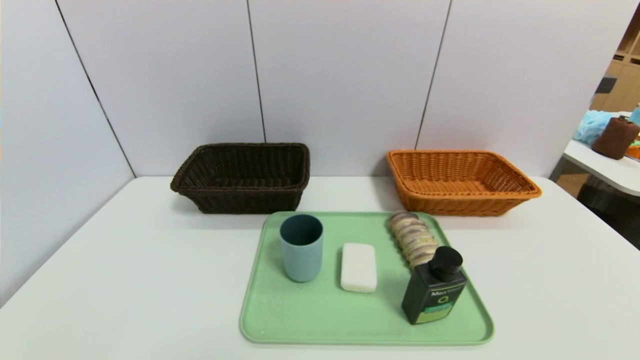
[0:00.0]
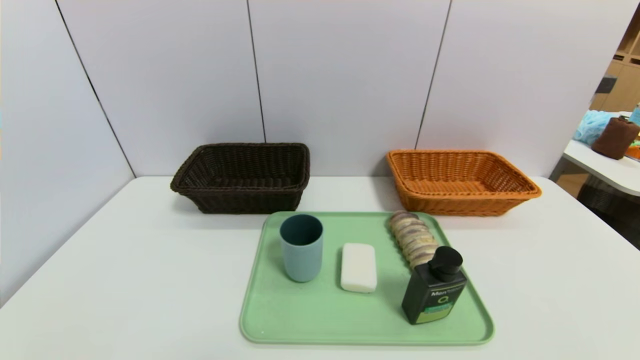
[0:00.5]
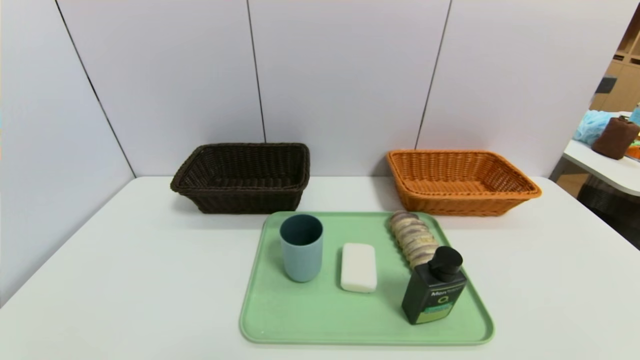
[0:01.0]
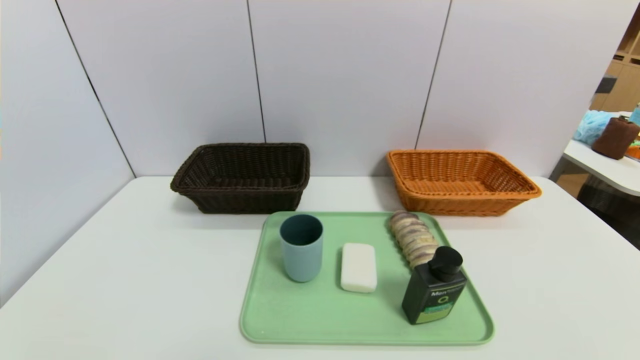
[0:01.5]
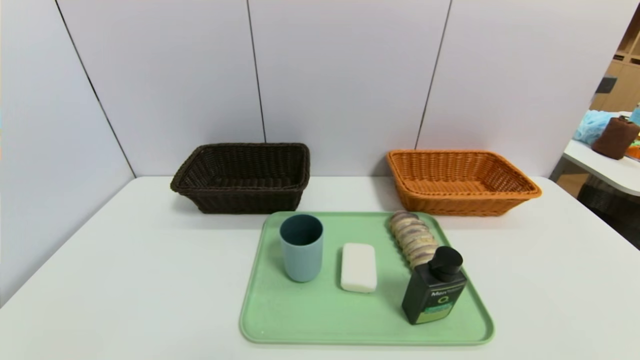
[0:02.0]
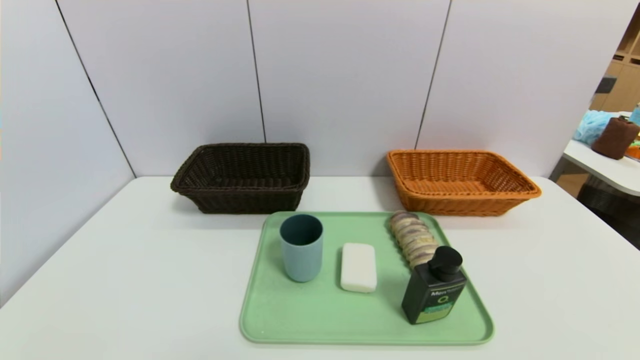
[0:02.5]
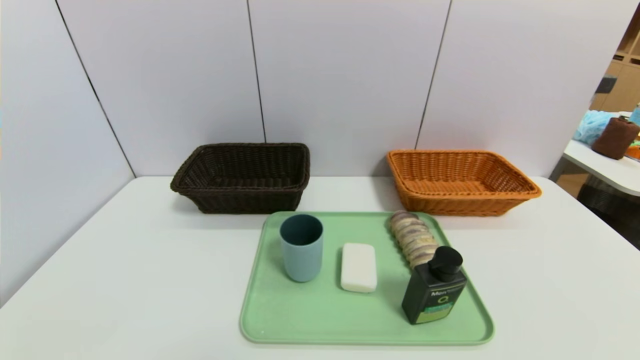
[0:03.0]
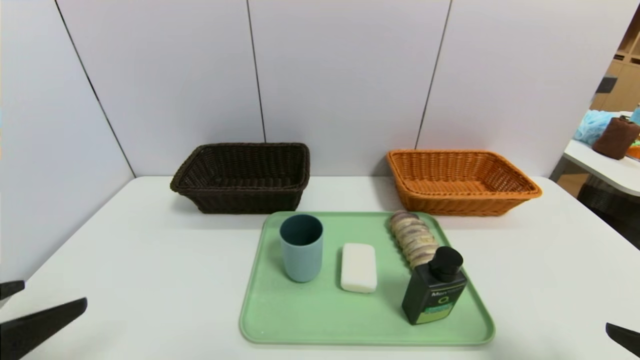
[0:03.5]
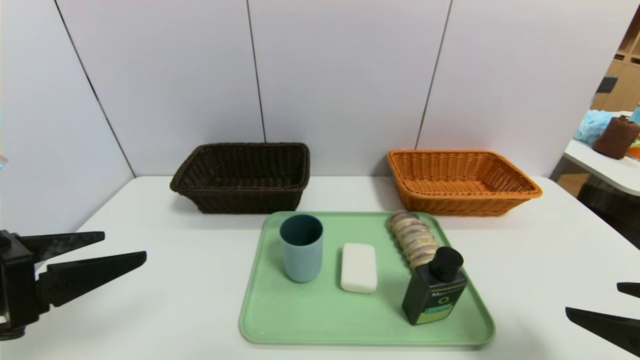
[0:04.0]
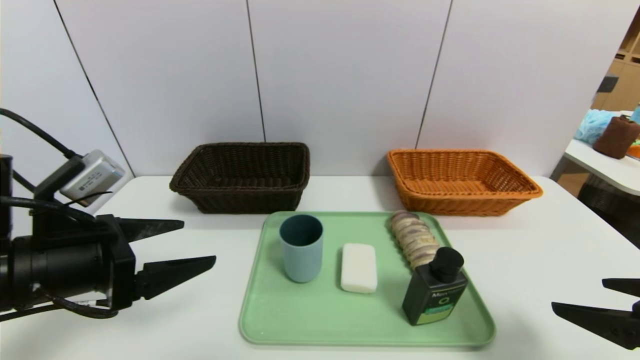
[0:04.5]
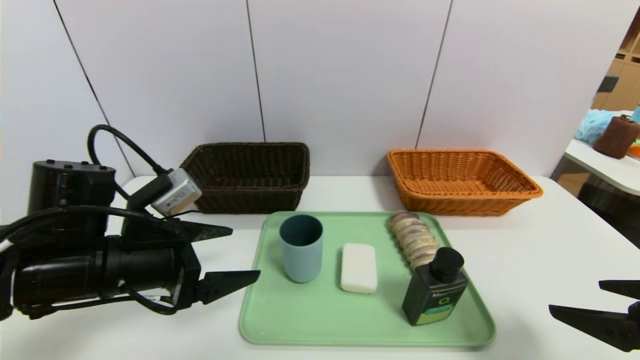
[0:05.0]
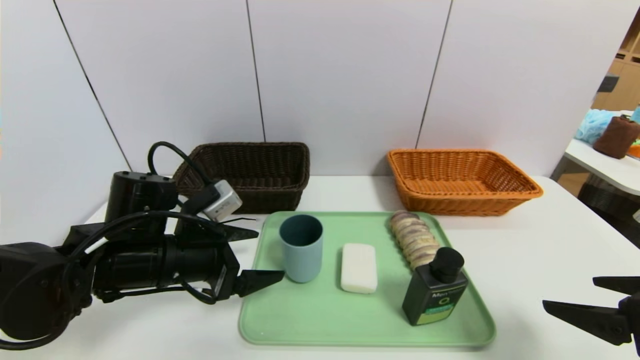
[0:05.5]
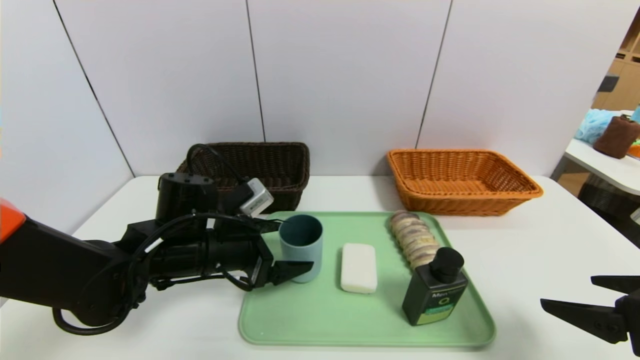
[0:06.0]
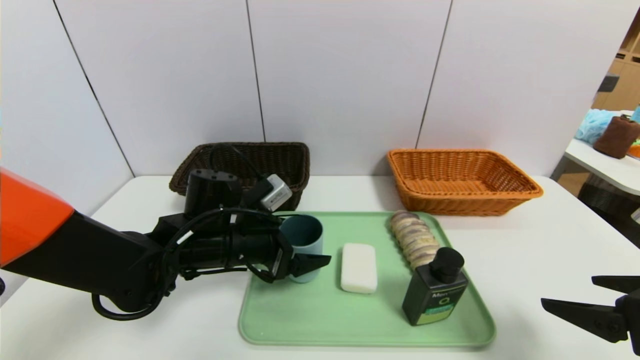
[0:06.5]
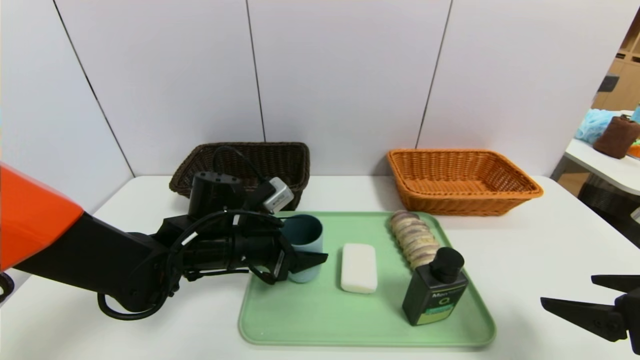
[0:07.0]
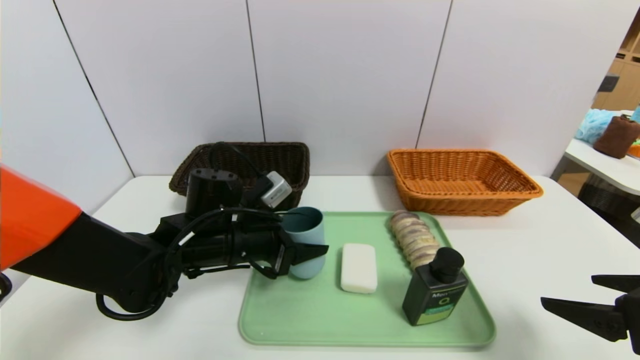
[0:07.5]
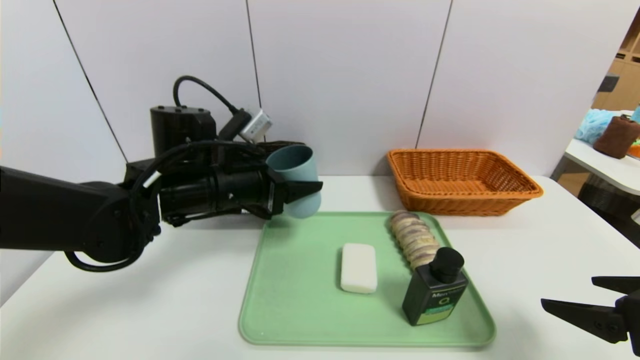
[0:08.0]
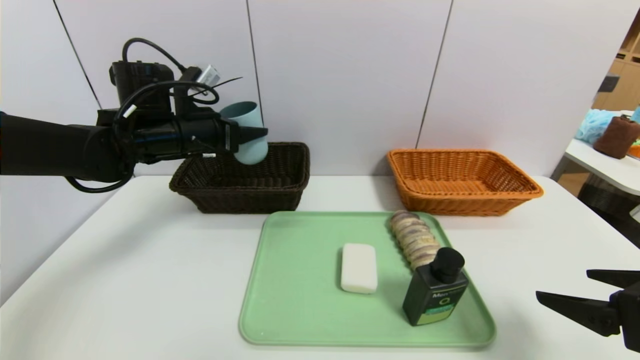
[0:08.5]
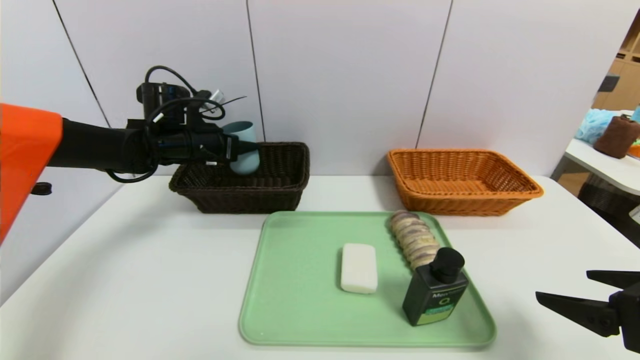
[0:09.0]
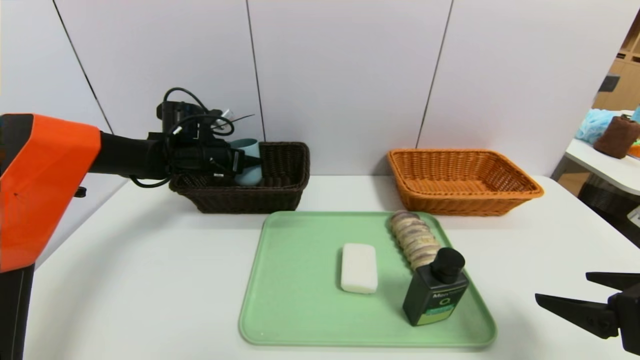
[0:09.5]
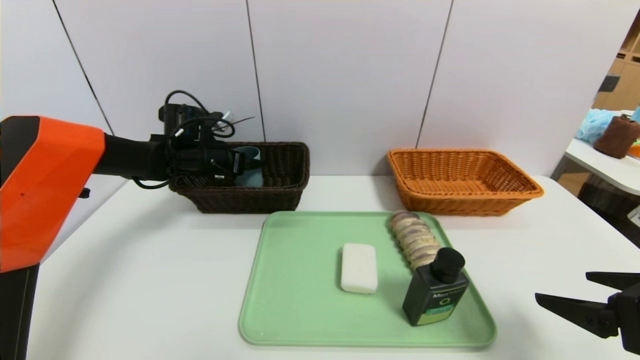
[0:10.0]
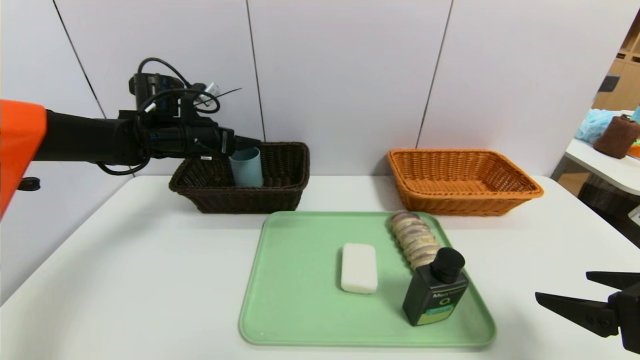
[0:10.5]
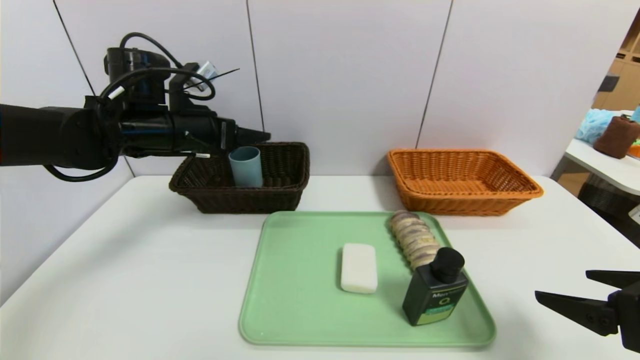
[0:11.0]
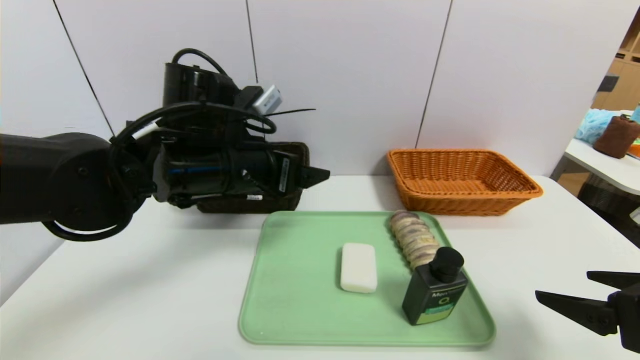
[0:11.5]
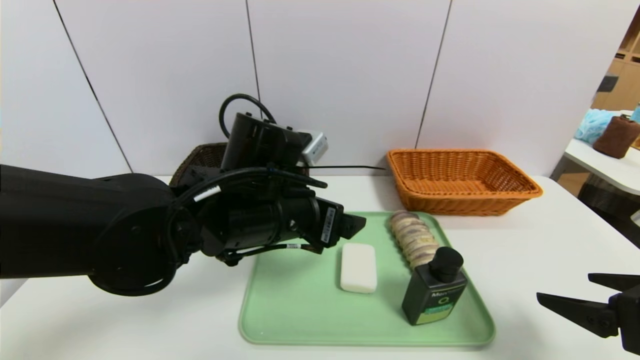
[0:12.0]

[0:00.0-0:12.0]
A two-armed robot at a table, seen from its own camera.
Task of the whole recording: place the food in the right basket with the right gripper, and place the non food items in the left basket with the left gripper.
Step, 0:00.0 to 0:10.0: Grasp the blue cup and put it in the left basket.
0:00.0 to 0:02.0: Both grippers stay put.
0:02.0 to 0:04.0: Both grippers travel together upward and forward, some 20 cm.
0:04.0 to 0:06.0: The left gripper travels forward, to the right and downward by some 25 cm.
0:06.0 to 0:08.0: The left gripper moves upward, some 10 cm, and closes up.
0:08.0 to 0:10.0: The left gripper moves forward and to the left, approximately 20 cm.
0:10.0 to 0:12.0: The left gripper shifts roughly 30 cm backward and to the right.

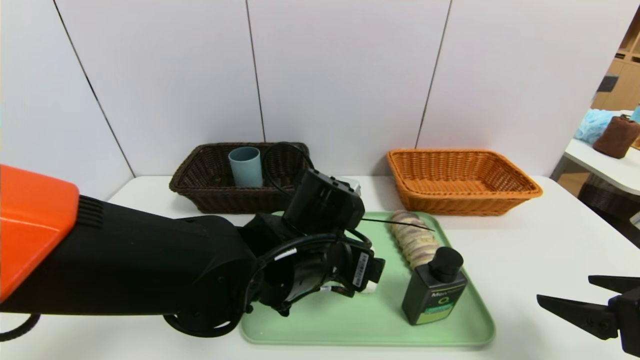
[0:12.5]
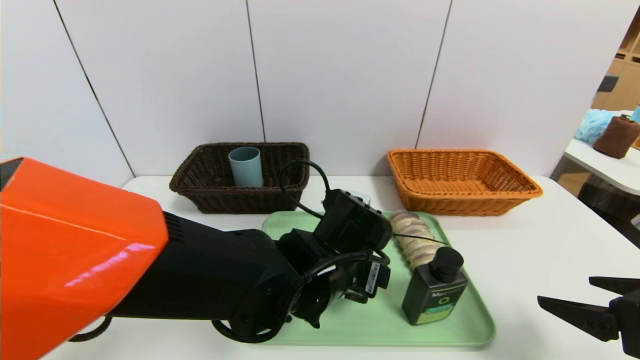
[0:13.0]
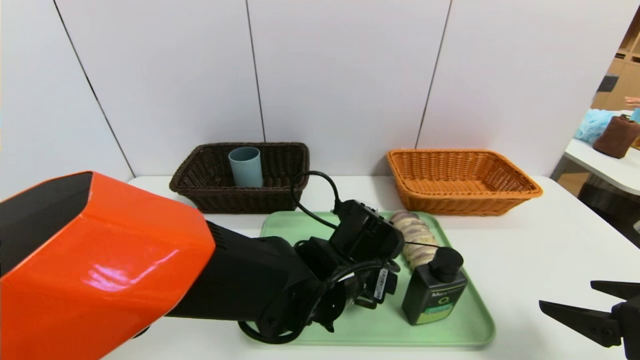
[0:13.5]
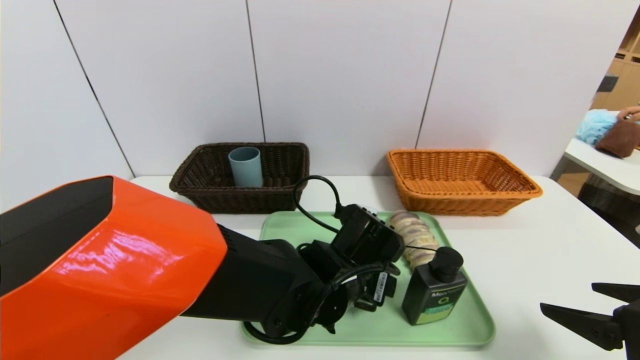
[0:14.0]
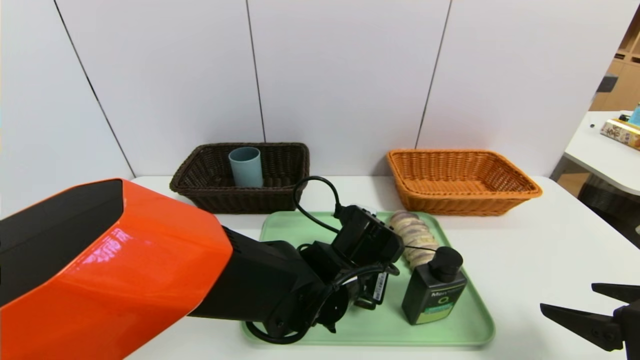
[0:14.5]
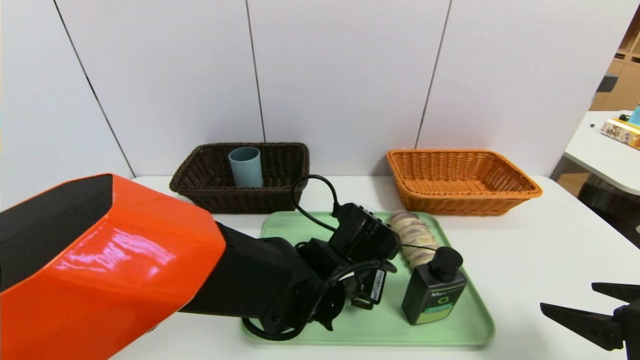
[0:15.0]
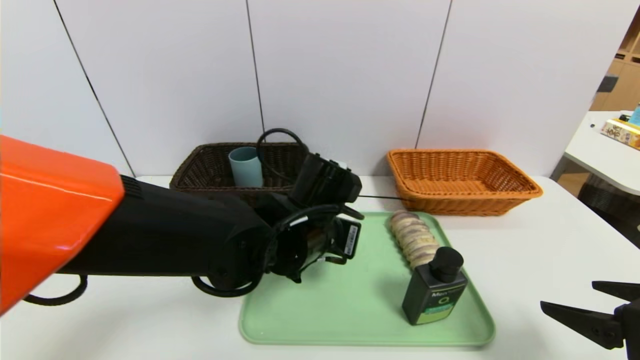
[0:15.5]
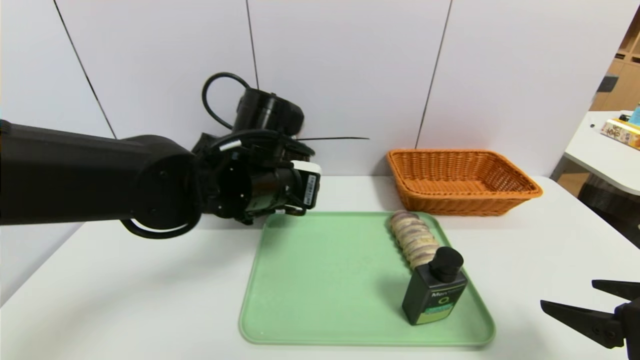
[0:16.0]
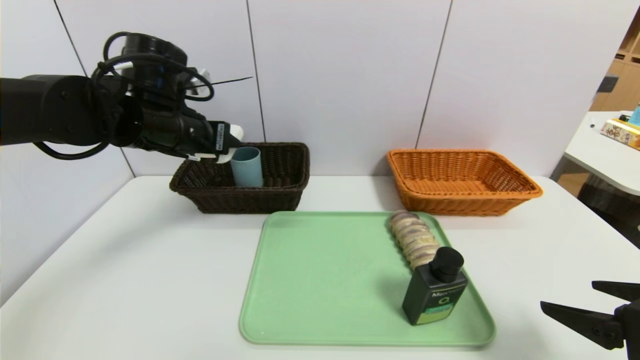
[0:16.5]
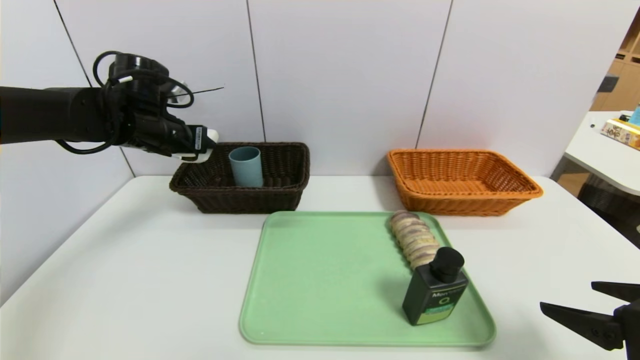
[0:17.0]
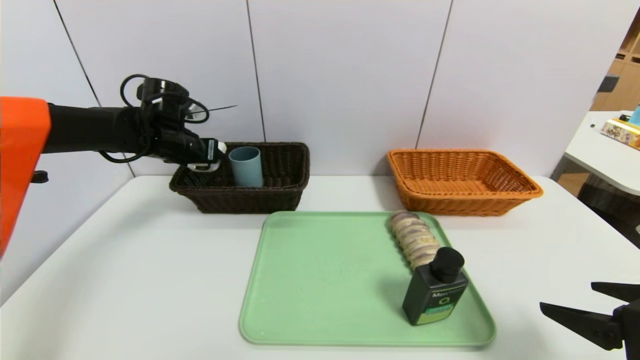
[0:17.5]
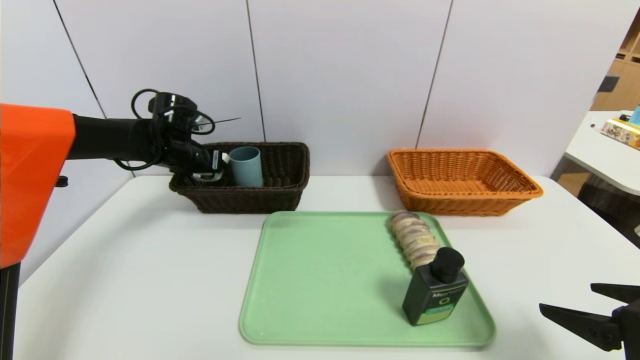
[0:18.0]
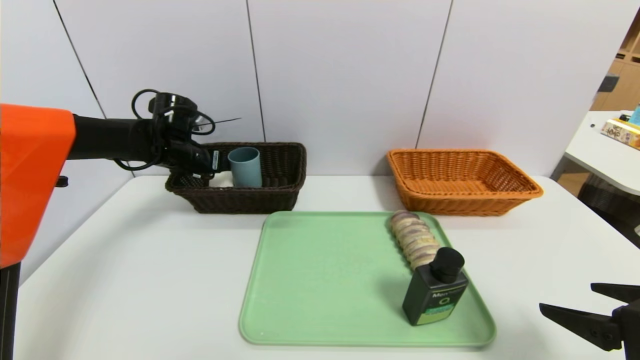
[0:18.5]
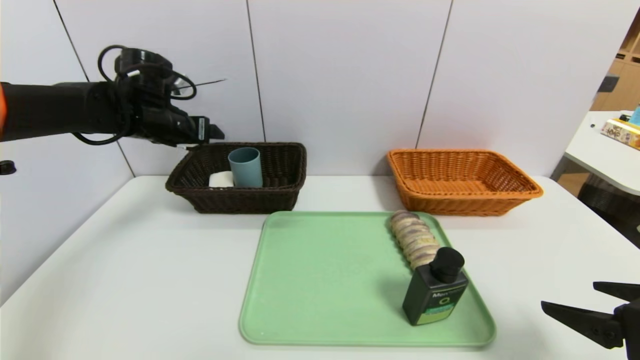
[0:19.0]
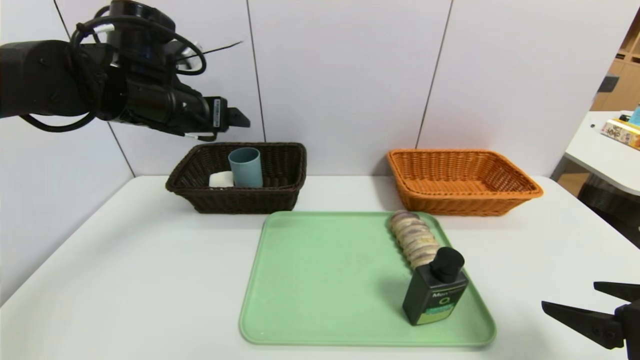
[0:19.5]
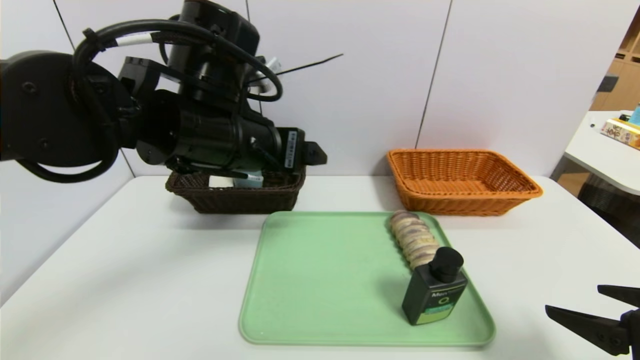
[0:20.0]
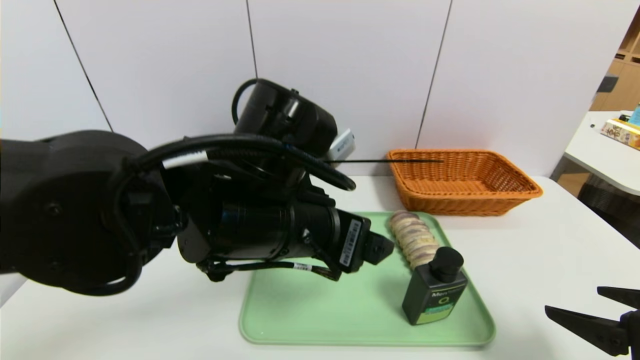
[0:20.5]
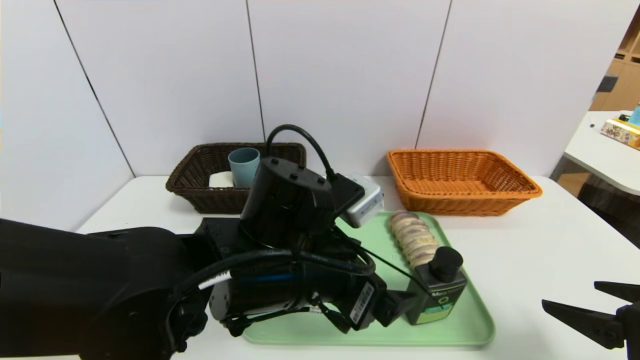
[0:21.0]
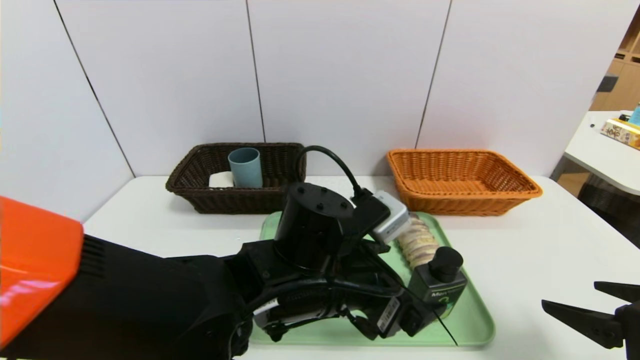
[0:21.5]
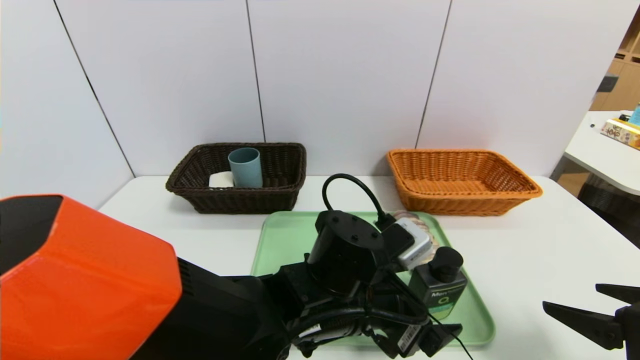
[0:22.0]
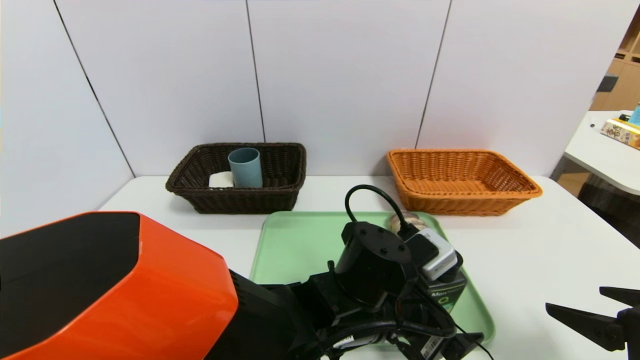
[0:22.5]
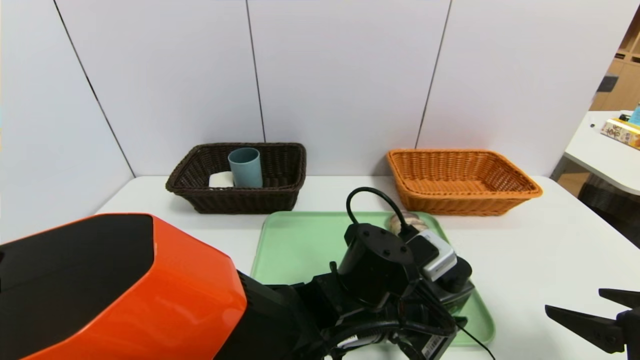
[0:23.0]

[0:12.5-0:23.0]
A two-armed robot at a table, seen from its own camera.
Task of the whole recording: place the food in the right basket with the right gripper, and place the non food items in the left basket with the left gripper.
Step, 0:12.5 to 0:18.0: Grasp the soap and put it in the left basket.
0:12.5 to 0:14.5: The left gripper heads downward, covering approximately 5 cm, and closes.
0:14.5 to 0:16.5: The left gripper moves to the left, upward and forward, some 30 cm.
0:16.5 to 0:19.0: The left gripper travels forward and to the left by roughly 10 cm, and opens.
0:19.0 to 0:21.0: The left gripper travels to the right and backward by approximately 30 cm.
0:21.0 to 0:23.0: The left gripper moves to the right and downward, some 10 cm, and closes its fingers.
